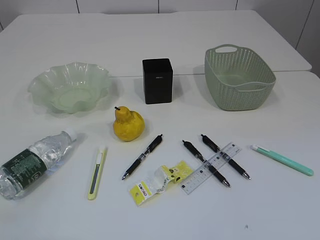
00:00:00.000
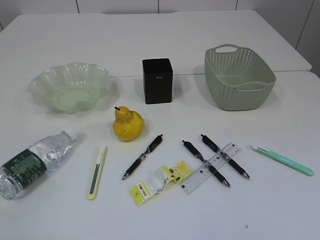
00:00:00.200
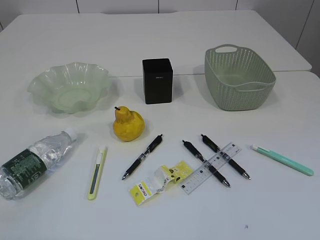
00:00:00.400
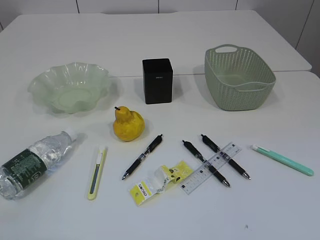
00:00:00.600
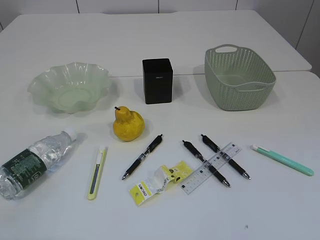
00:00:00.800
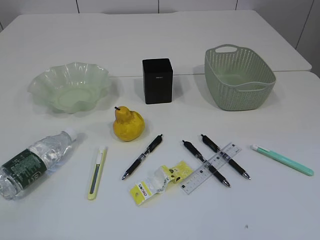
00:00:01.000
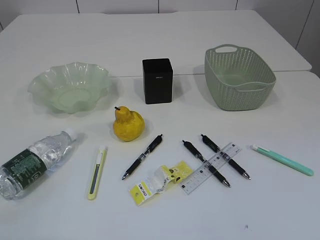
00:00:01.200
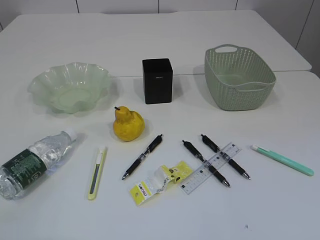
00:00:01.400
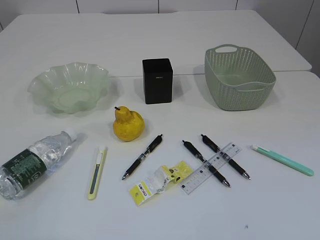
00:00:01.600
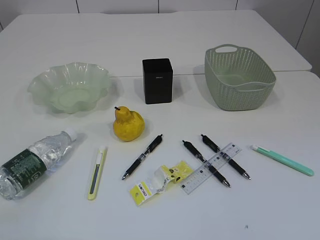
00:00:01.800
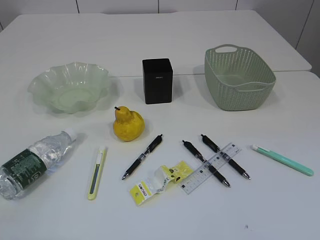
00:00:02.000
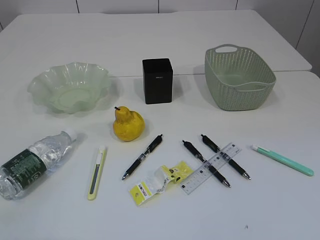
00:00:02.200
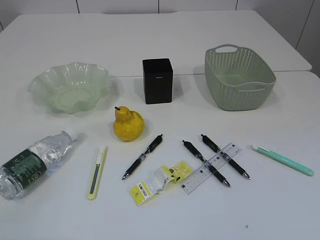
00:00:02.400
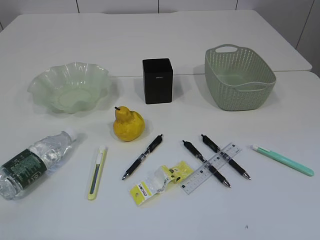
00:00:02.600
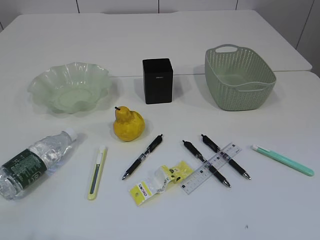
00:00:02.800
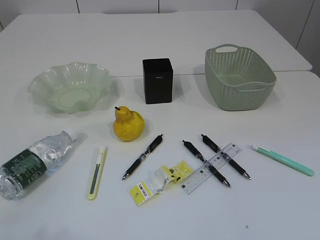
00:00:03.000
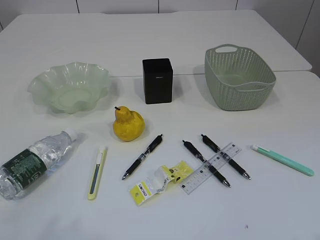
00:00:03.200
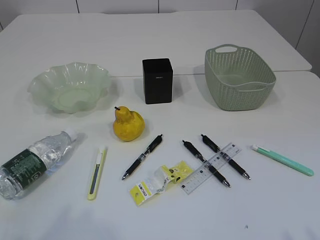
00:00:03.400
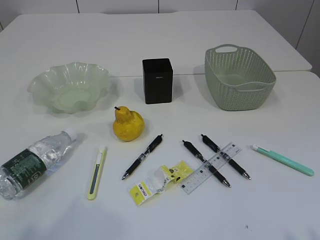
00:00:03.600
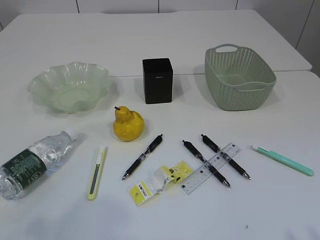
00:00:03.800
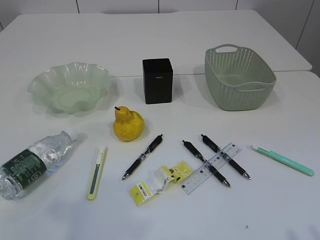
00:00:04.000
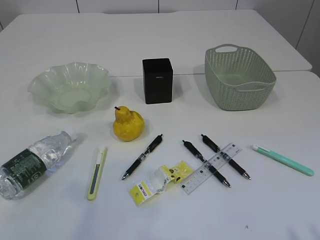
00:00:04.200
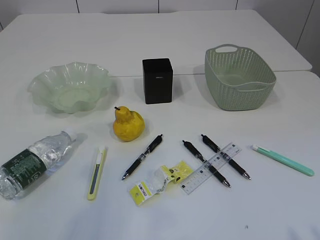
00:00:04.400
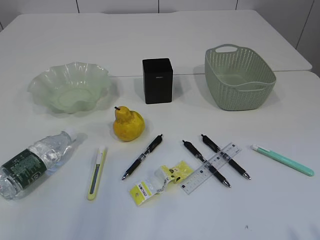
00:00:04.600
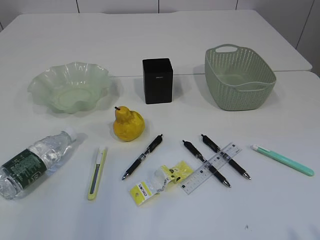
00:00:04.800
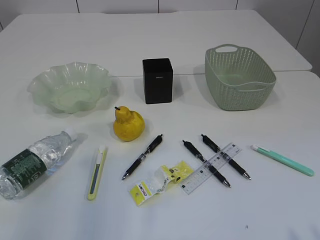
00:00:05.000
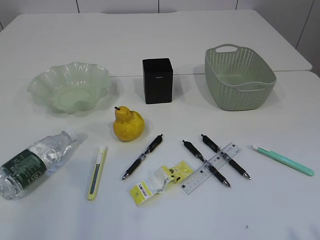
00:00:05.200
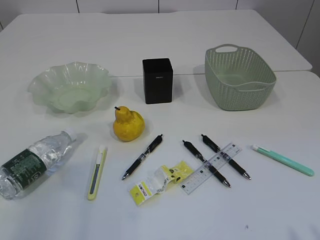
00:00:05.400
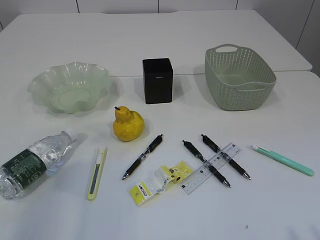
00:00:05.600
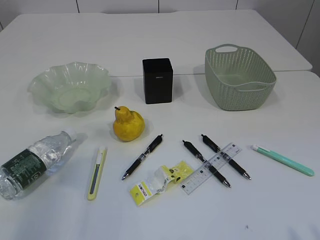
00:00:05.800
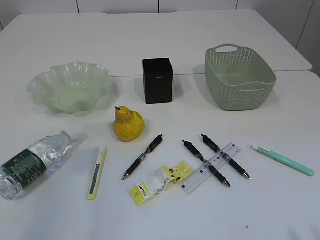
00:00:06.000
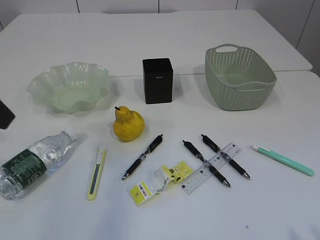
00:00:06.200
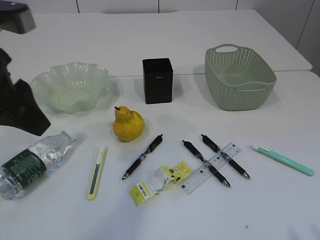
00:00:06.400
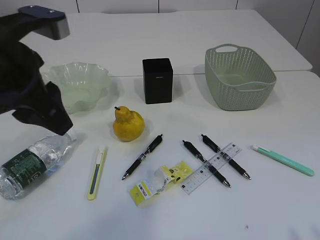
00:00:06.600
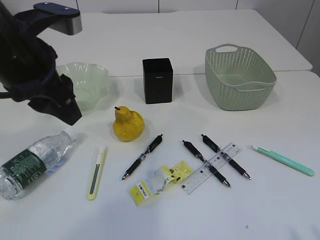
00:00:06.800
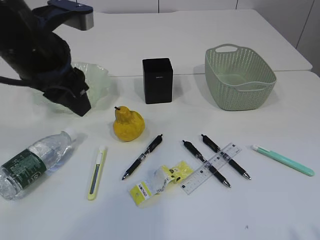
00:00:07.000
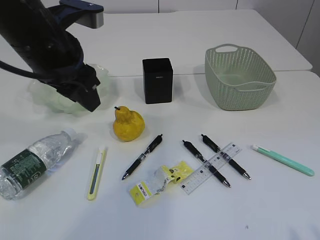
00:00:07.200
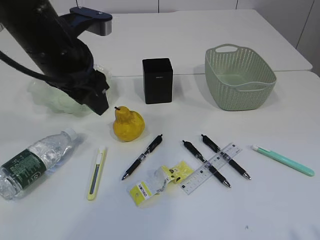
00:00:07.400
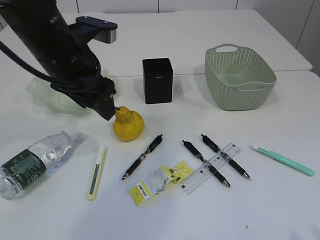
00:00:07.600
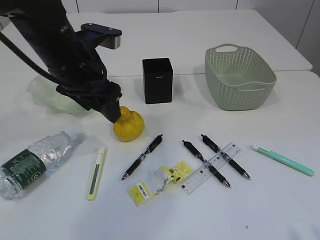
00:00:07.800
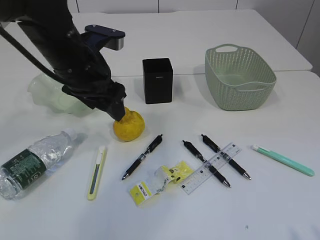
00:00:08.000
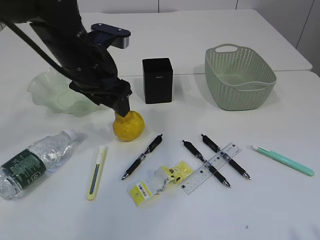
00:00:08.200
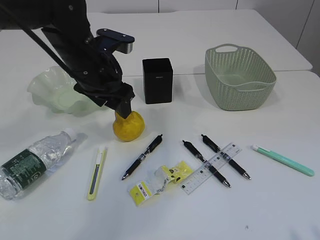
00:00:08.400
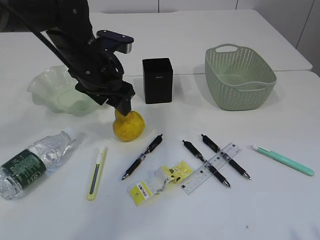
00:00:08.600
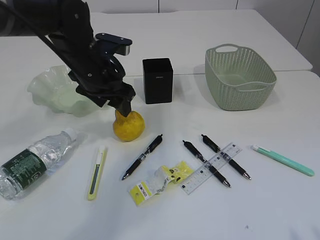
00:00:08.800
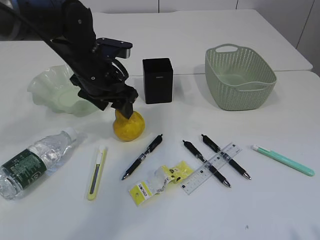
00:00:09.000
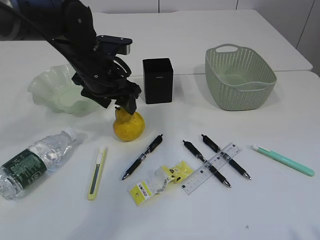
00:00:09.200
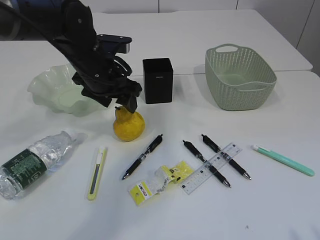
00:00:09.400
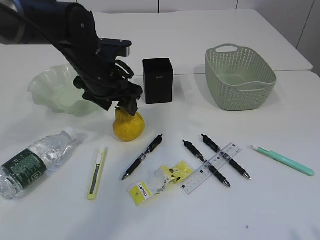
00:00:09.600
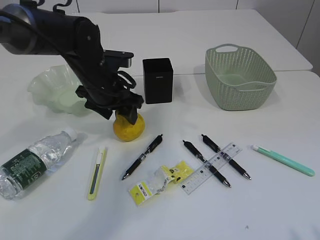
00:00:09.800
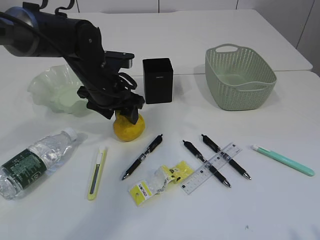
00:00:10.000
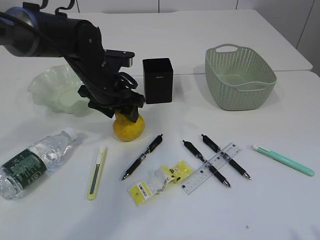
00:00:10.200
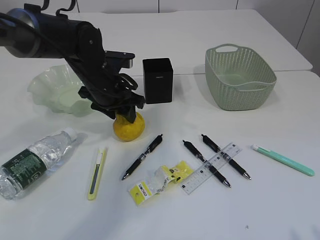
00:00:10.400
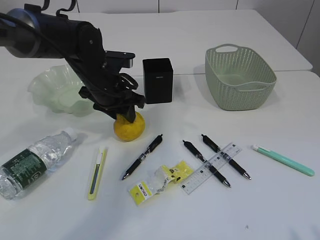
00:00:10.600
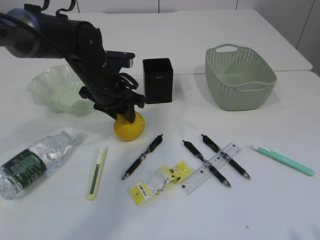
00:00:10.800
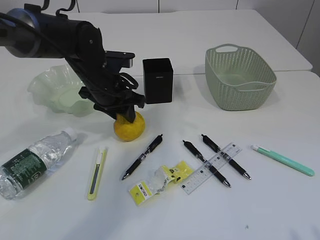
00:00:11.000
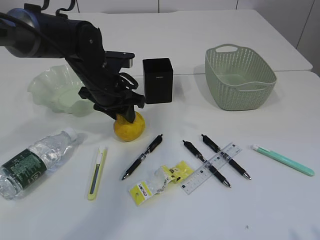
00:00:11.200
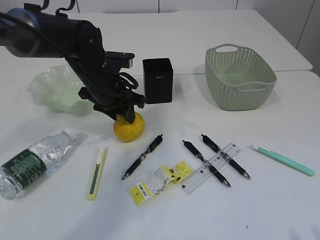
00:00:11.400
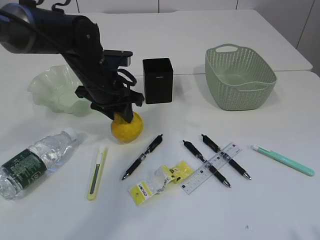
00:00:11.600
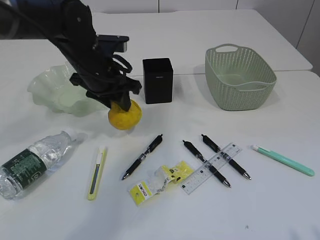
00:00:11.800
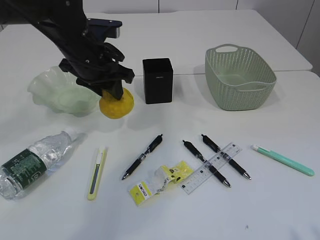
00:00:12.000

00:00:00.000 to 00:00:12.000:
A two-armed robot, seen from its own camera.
00:00:03.000 to 00:00:04.400: The left gripper moves forward and upward, roughly 15 cm.
00:00:06.000 to 00:00:07.600: The left gripper is displaced to the right, forward and downward by some 20 cm, and opens its fingers.
00:00:07.600 to 00:00:09.000: The left gripper moves forward and downward, approximately 10 cm.
00:00:09.000 to 00:00:10.400: The grippers make only small movements.
00:00:10.400 to 00:00:12.000: The left gripper travels upward by approximately 5 cm.

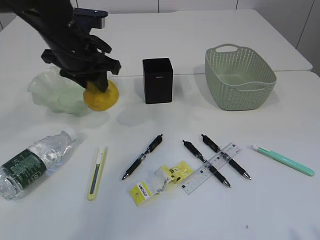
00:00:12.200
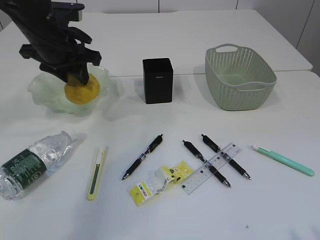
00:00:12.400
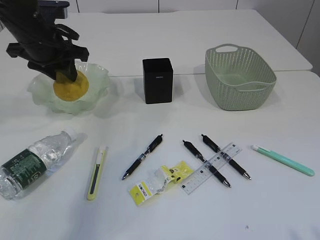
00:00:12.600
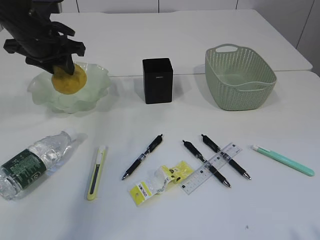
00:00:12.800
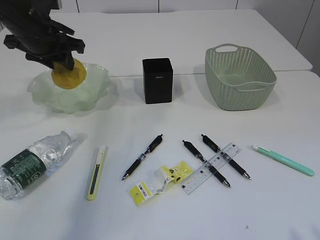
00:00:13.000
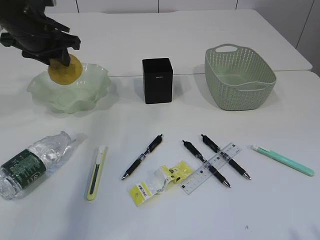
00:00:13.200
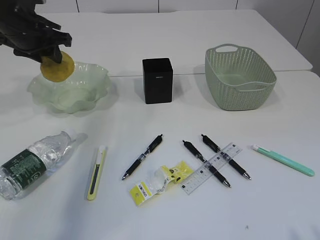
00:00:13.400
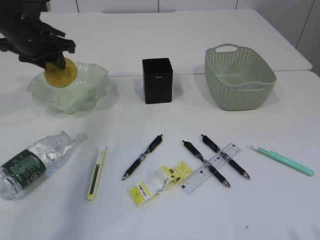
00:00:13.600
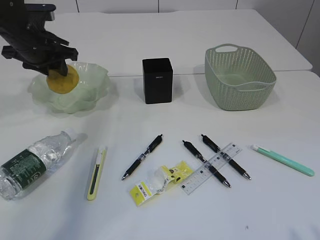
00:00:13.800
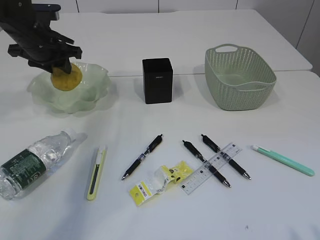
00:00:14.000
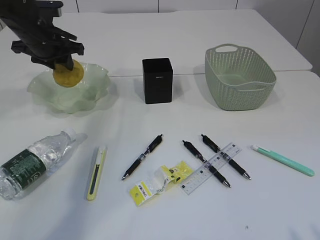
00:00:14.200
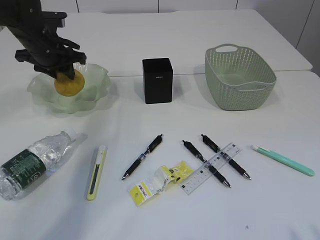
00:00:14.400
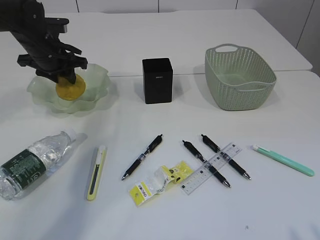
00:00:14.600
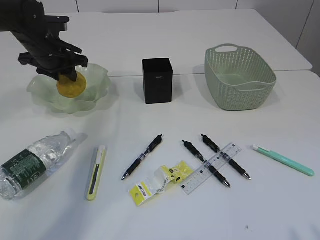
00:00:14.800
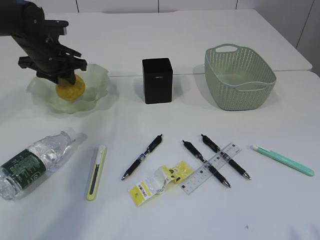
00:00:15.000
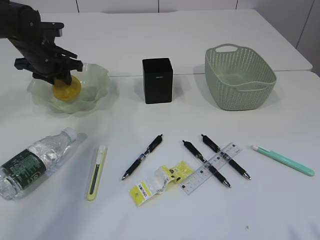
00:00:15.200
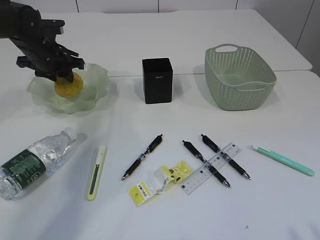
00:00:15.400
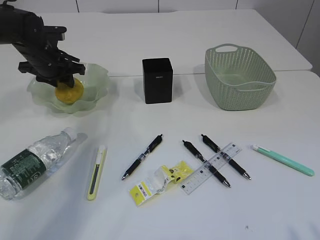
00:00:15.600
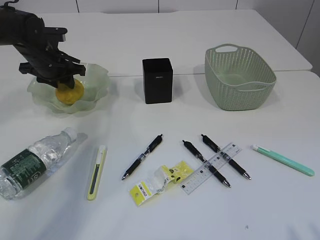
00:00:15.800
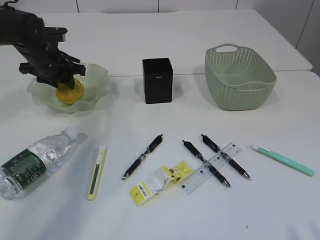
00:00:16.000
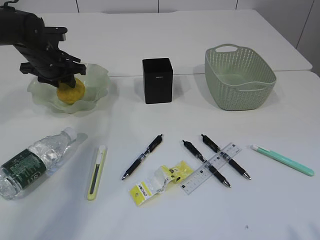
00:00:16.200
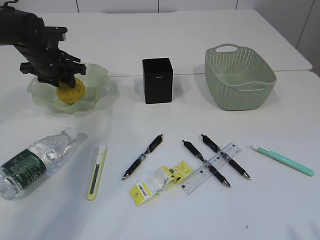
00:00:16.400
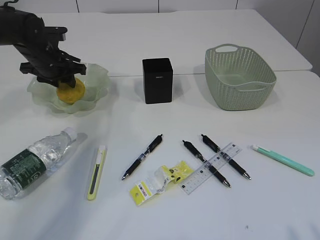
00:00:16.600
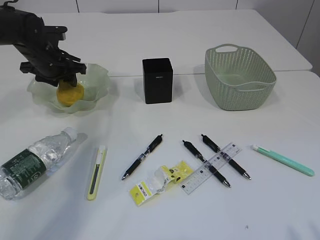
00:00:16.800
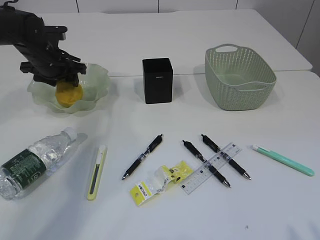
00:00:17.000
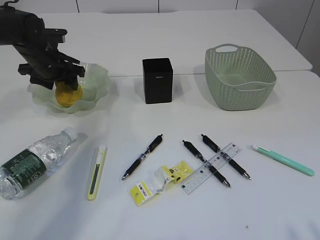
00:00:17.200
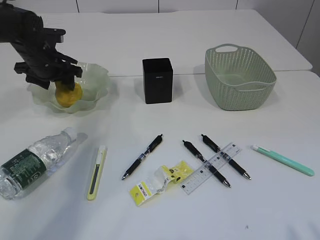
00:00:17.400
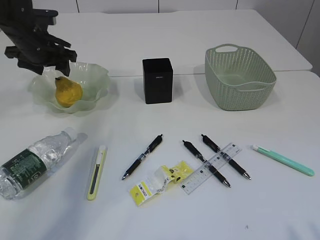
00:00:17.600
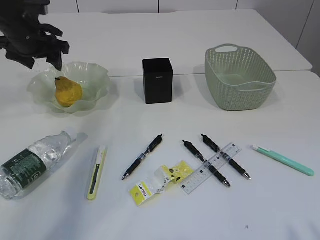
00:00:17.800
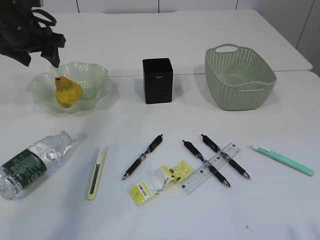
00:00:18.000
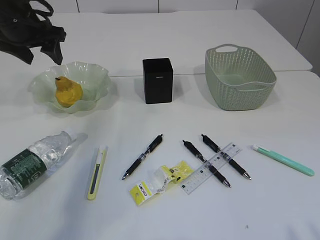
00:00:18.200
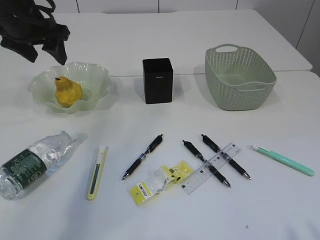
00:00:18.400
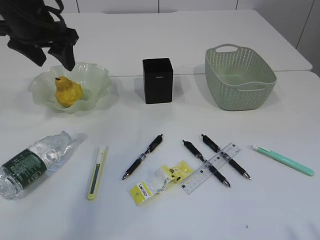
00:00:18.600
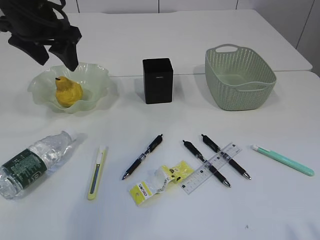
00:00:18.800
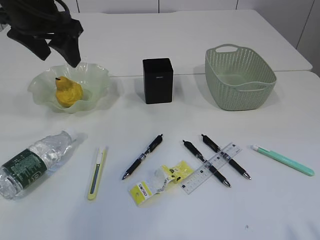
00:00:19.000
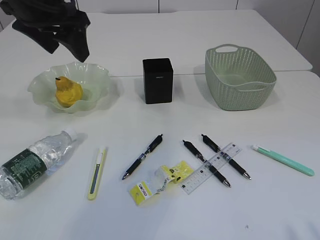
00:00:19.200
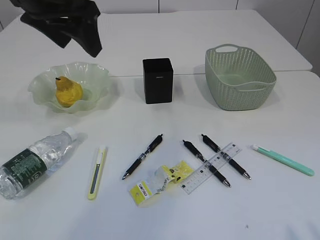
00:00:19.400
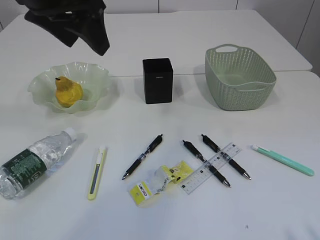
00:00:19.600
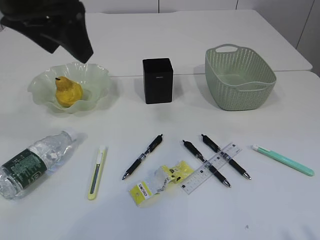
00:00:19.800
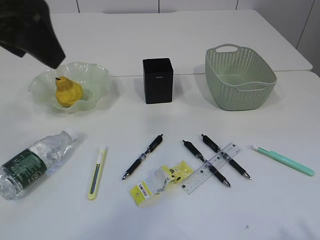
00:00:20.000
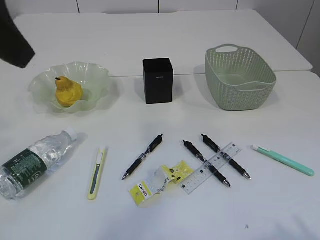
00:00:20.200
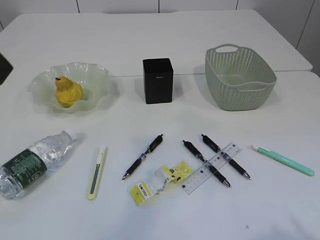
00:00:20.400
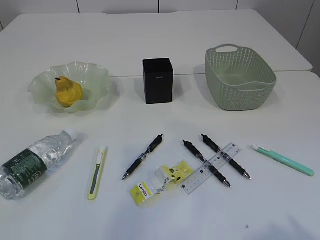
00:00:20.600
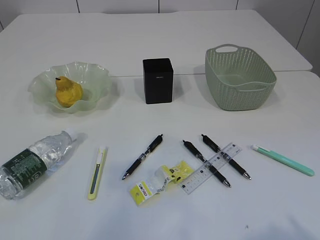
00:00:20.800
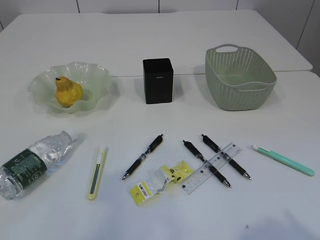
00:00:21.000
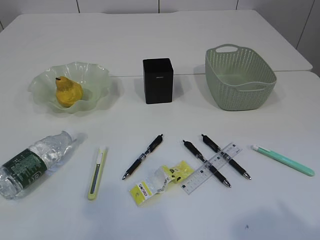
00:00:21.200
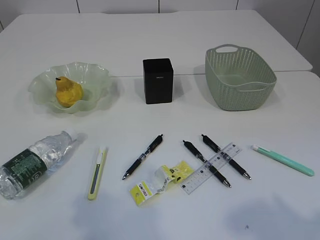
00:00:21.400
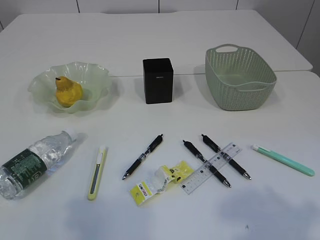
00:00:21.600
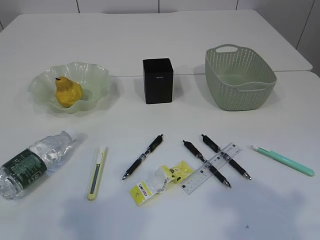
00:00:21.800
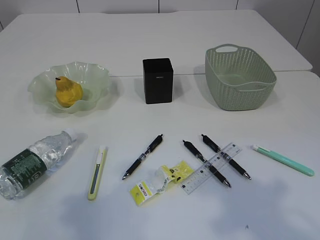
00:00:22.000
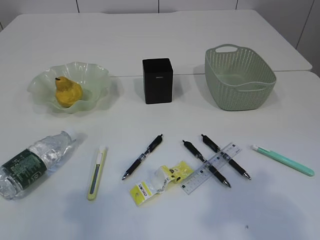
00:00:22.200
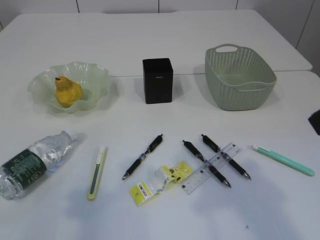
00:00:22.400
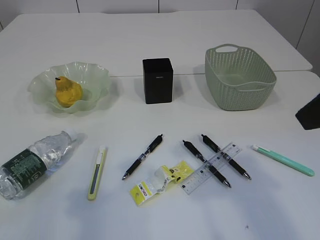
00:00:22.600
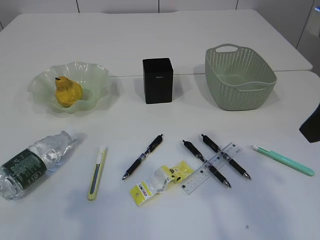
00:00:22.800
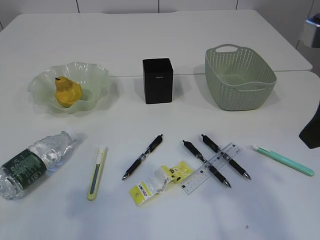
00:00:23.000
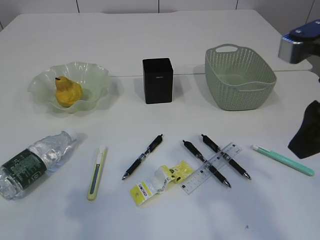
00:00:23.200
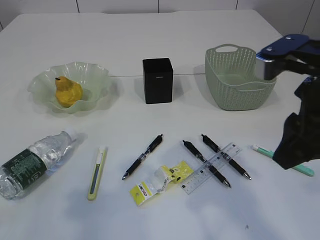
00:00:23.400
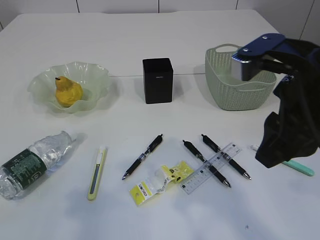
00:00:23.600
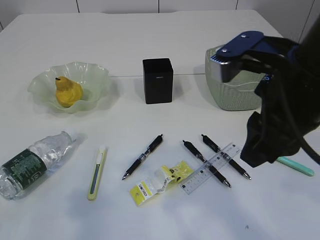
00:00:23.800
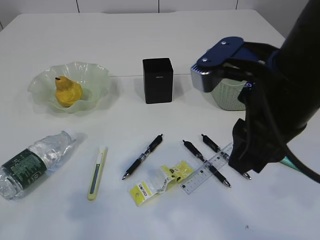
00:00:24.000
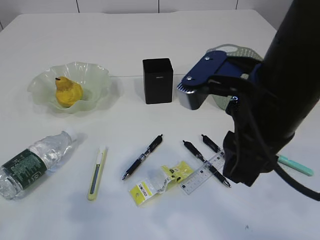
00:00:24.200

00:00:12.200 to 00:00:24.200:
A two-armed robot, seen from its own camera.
Step, 00:00:12.600 to 00:00:17.800: Place the pear in the plate.
00:00:12.200 to 00:00:13.800: The left gripper heads to the left and forward, covering roughly 10 cm.
00:00:13.800 to 00:00:15.200: The left gripper moves roughly 5 cm.
00:00:15.200 to 00:00:16.600: There are only small adjustments of the grippers.
00:00:16.600 to 00:00:18.200: The left gripper moves upward and backward, roughly 15 cm, and opens.
00:00:18.200 to 00:00:19.800: The left gripper is displaced backward, upward and to the right by some 20 cm.
00:00:19.800 to 00:00:21.200: The right gripper moves about 5 cm. The left gripper heads backward and to the left, covering approximately 20 cm.
00:00:21.200 to 00:00:22.600: The right gripper travels forward by roughly 15 cm.
00:00:22.600 to 00:00:24.200: The right gripper goes approximately 10 cm to the left and downward.
